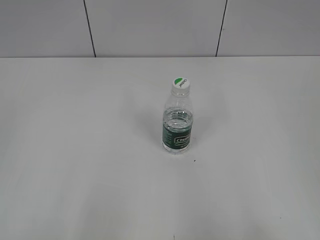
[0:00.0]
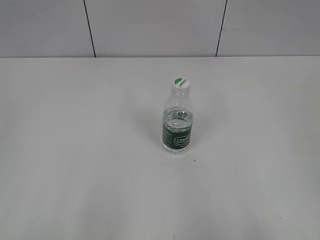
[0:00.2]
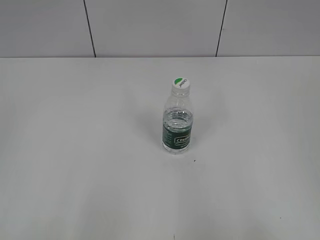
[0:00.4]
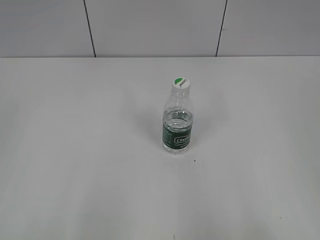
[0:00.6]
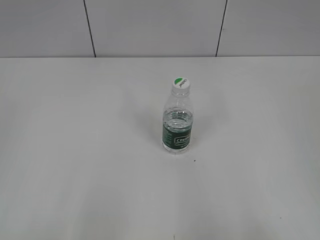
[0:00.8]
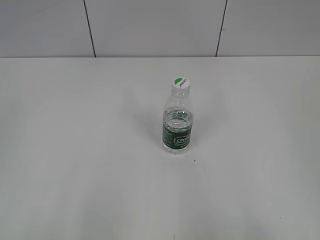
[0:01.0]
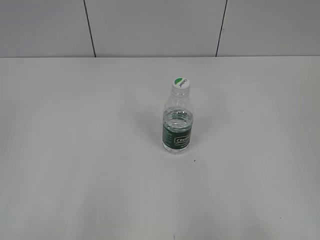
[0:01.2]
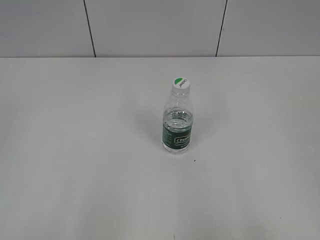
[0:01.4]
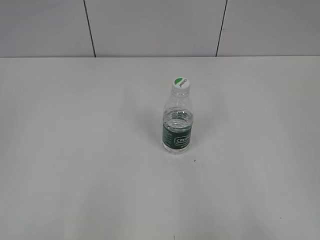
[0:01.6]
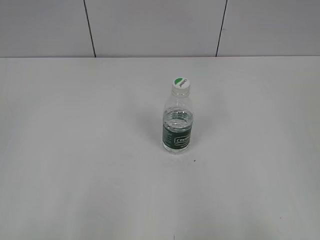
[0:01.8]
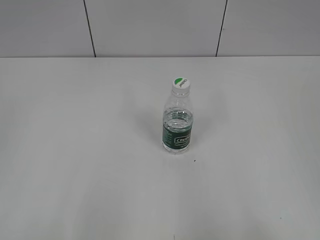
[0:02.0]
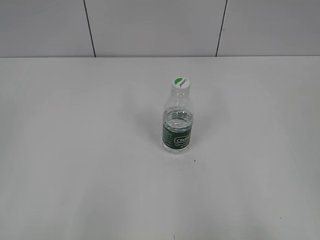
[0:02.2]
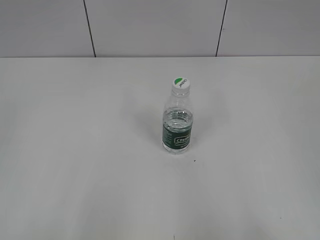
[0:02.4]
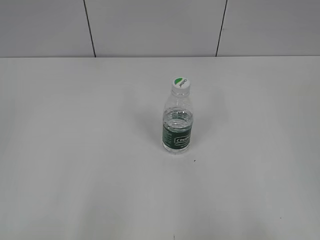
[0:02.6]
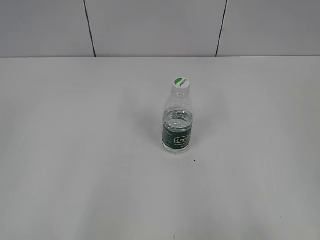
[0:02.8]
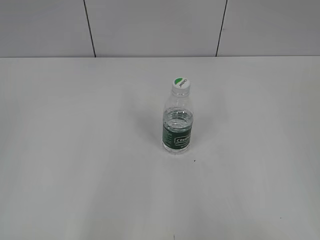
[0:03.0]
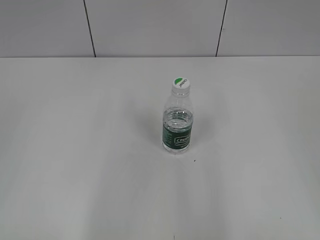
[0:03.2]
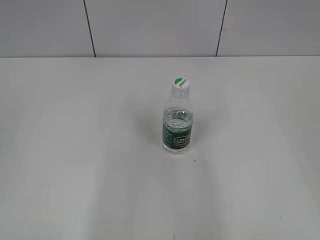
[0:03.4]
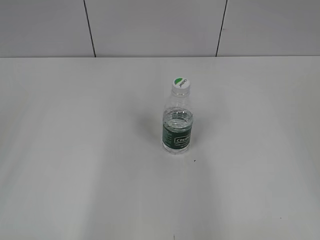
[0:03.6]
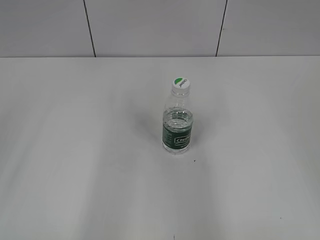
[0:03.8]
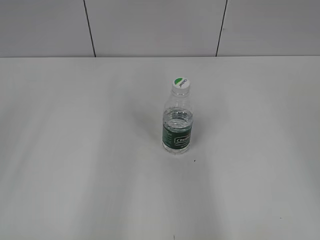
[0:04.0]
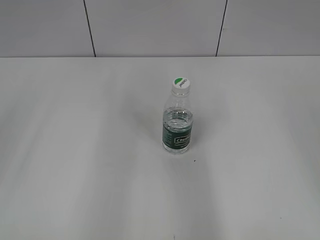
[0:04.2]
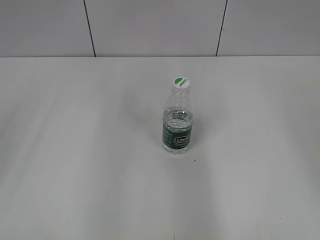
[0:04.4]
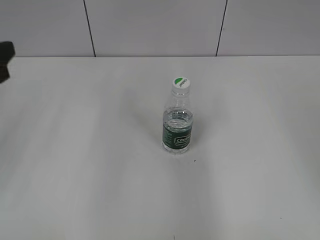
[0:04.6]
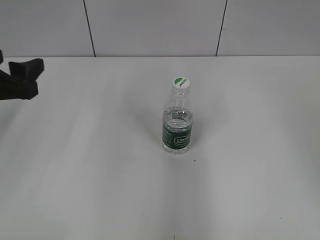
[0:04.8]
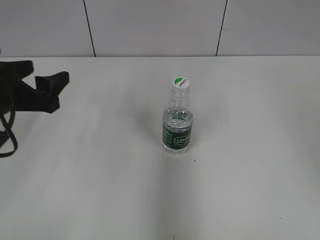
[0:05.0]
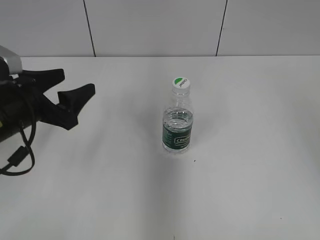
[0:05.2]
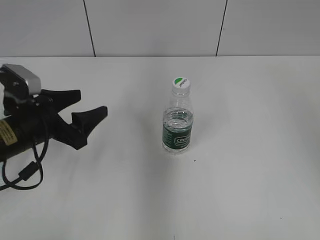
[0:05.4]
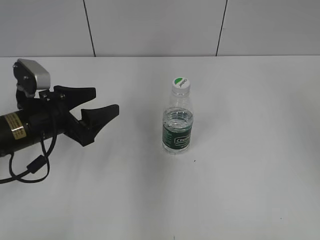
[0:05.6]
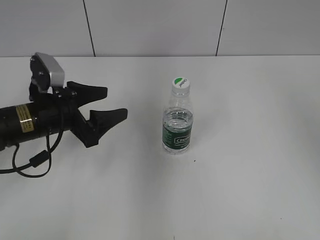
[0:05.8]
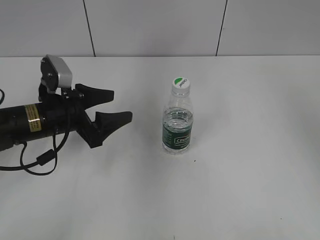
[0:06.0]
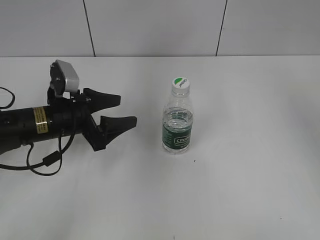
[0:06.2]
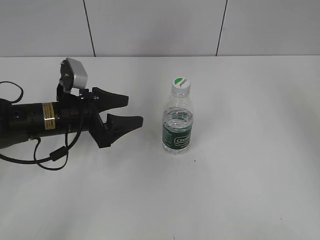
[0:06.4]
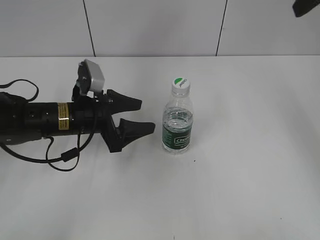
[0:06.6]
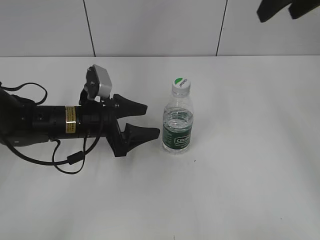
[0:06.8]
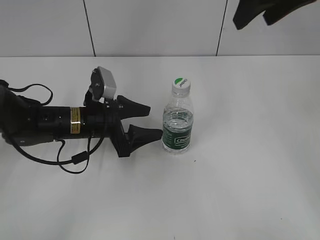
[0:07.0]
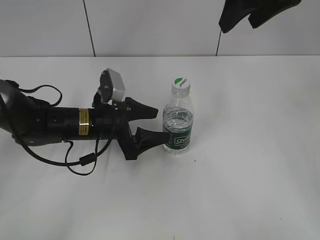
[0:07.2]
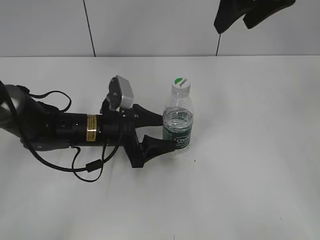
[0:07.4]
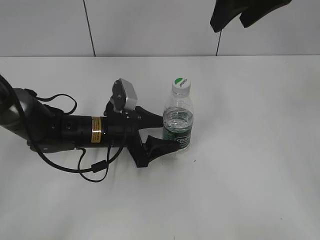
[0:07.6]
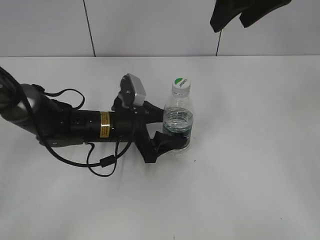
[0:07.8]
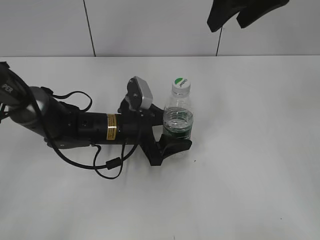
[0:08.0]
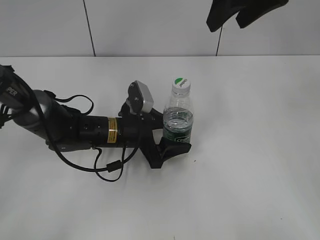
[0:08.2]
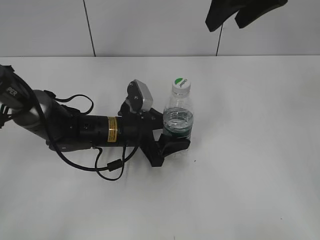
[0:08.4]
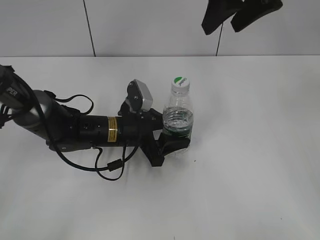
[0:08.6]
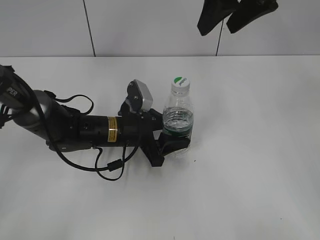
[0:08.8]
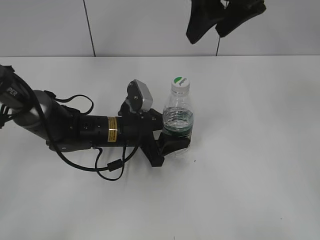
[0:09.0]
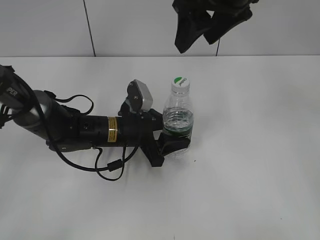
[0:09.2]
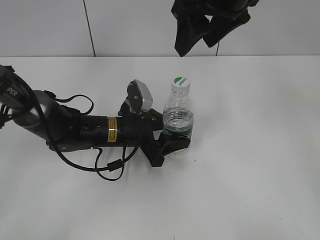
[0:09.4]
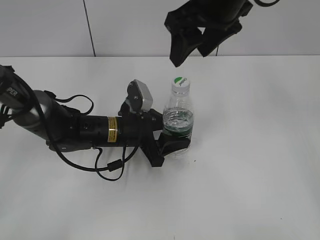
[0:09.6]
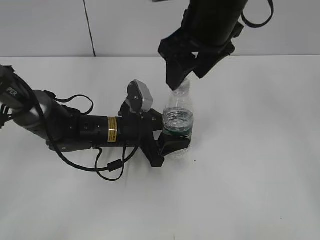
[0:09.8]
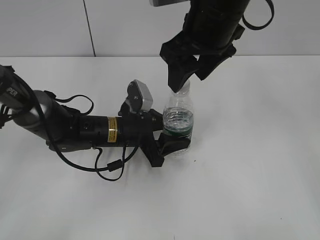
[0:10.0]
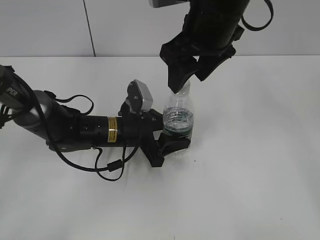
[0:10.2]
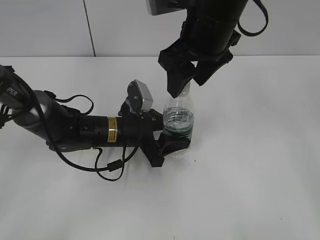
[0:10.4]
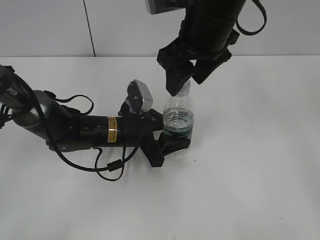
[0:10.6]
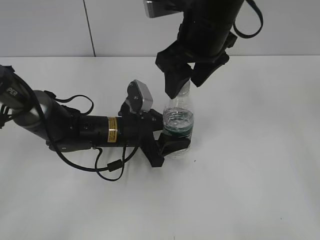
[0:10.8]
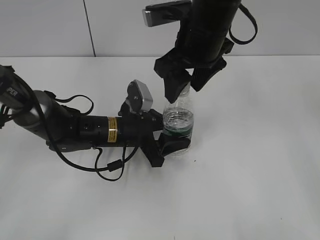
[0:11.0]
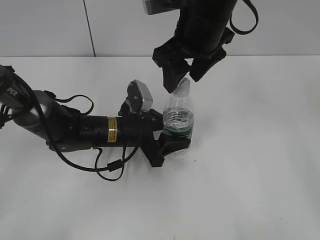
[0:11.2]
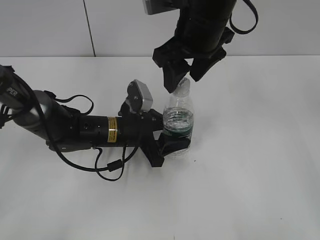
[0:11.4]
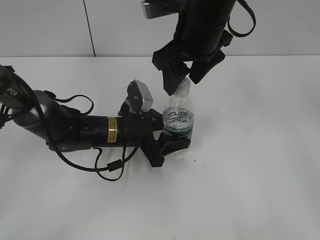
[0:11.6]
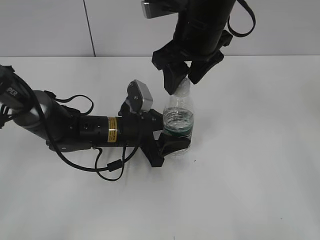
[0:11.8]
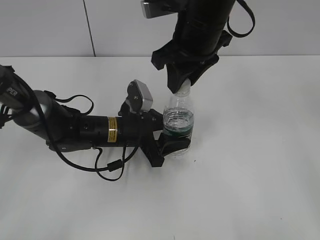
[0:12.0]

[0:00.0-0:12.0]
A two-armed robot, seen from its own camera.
Step, 0:00.0 to 0:08.6: Grasp the bottle and move it to the center of the table with the left gripper.
0:04.4 to 0:06.0: The right gripper travels forward by about 15 cm. Meanwhile the left gripper goes approximately 20 cm downward, to the right and forward.
0:06.0 to 0:07.6: The right gripper heads to the left and forward, covering approximately 15 cm. The left gripper heads to the right and downward, covering roughly 10 cm.
0:07.6 to 0:09.0: The grippers make only small movements.
0:09.0 to 0:10.4: The right gripper is displaced downward by roughly 5 cm.
0:10.4 to 0:12.0: The right gripper closes up.

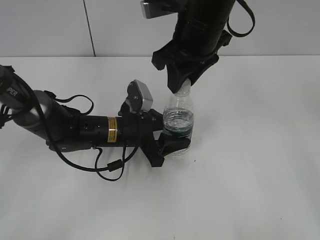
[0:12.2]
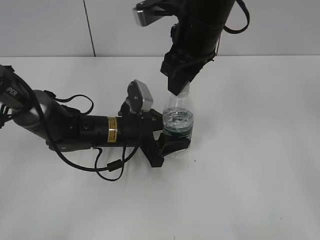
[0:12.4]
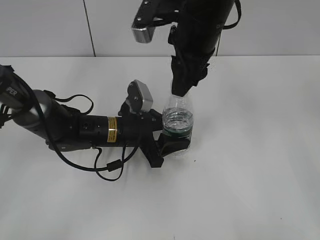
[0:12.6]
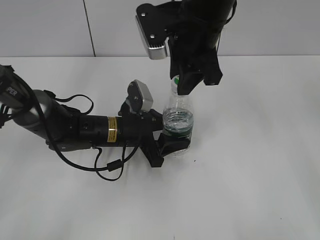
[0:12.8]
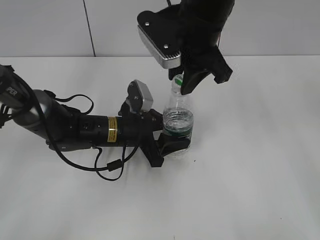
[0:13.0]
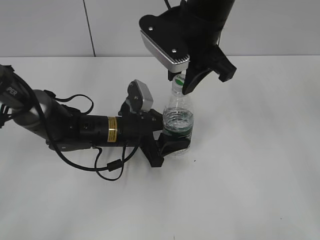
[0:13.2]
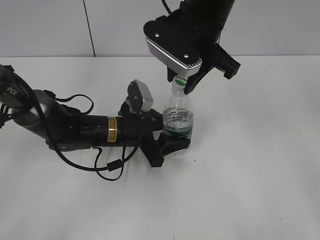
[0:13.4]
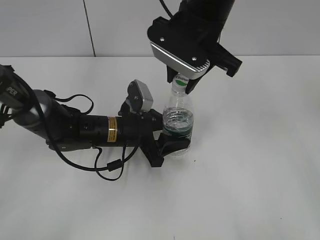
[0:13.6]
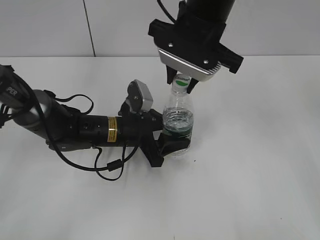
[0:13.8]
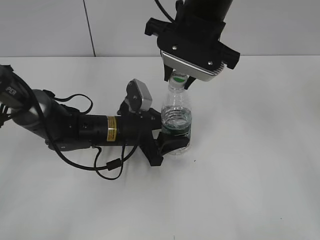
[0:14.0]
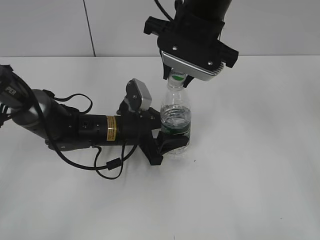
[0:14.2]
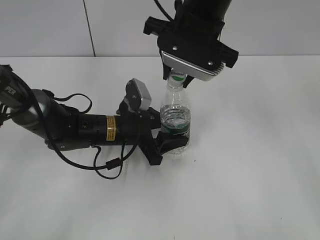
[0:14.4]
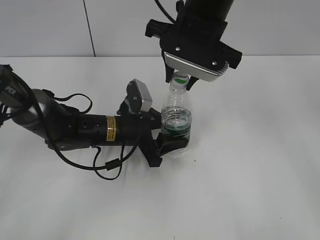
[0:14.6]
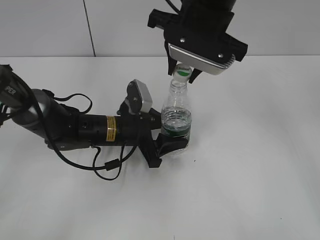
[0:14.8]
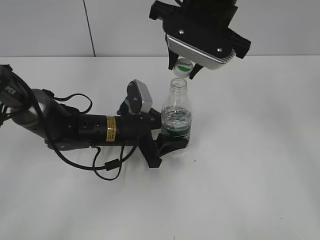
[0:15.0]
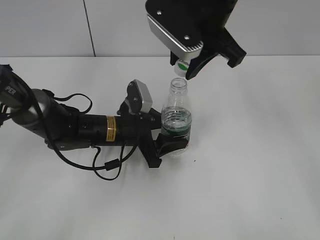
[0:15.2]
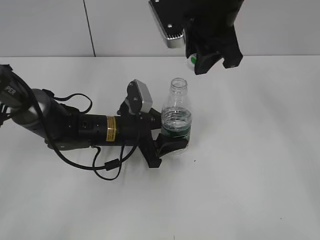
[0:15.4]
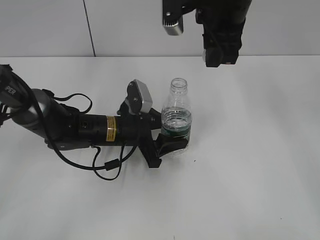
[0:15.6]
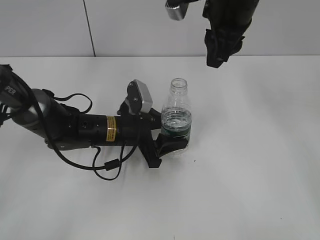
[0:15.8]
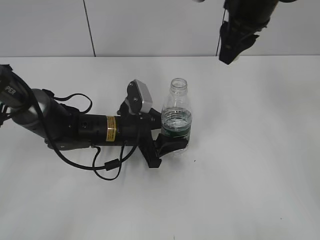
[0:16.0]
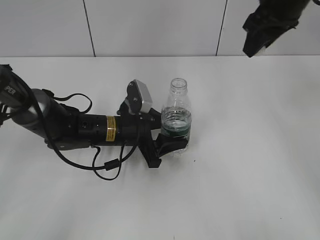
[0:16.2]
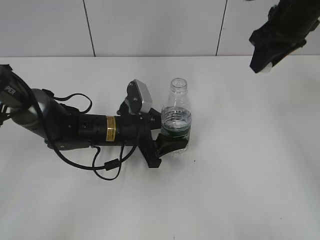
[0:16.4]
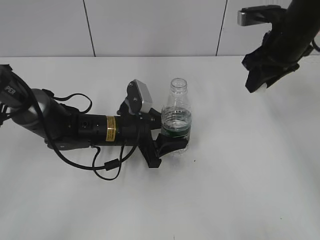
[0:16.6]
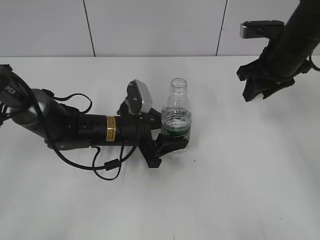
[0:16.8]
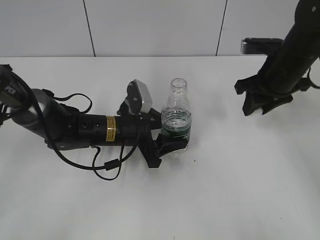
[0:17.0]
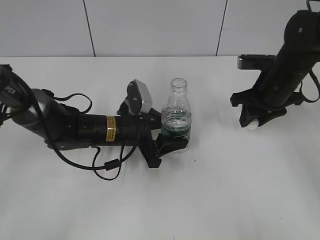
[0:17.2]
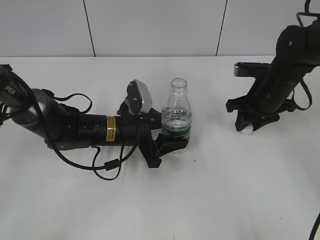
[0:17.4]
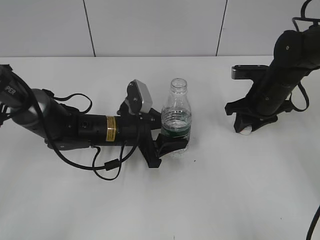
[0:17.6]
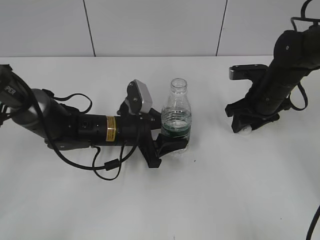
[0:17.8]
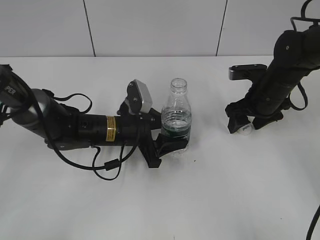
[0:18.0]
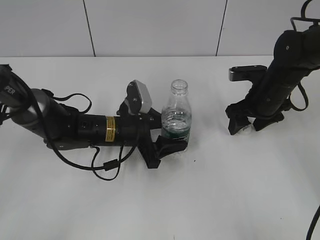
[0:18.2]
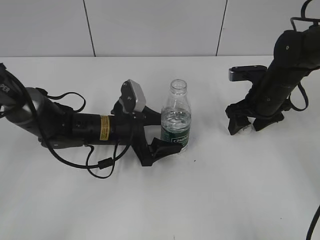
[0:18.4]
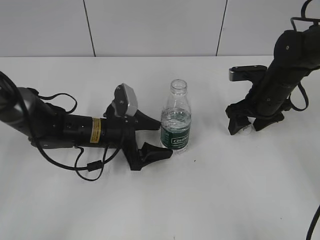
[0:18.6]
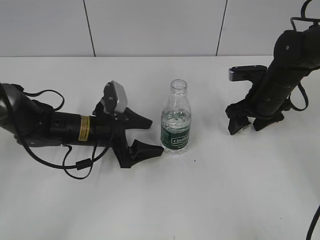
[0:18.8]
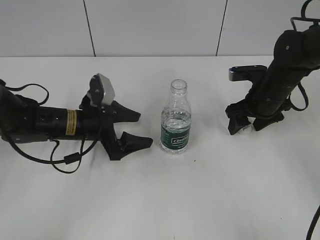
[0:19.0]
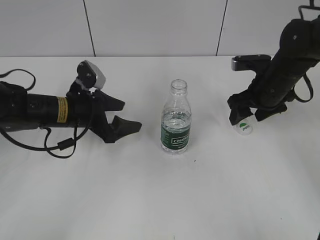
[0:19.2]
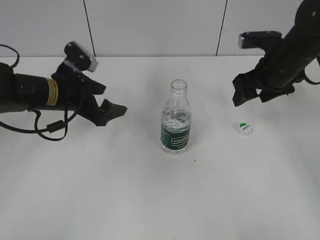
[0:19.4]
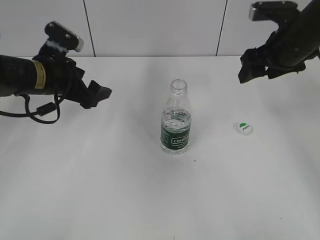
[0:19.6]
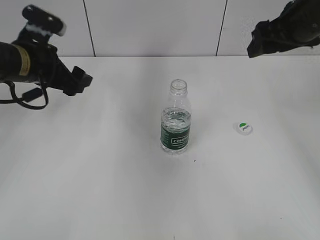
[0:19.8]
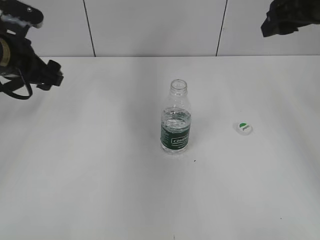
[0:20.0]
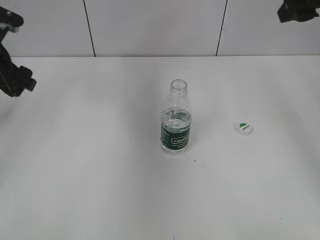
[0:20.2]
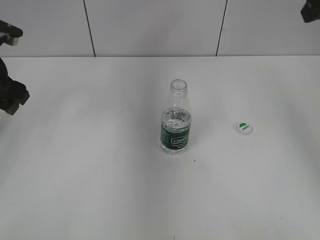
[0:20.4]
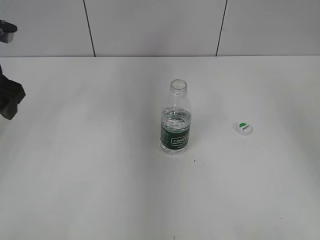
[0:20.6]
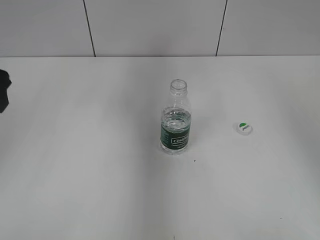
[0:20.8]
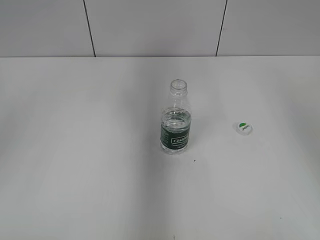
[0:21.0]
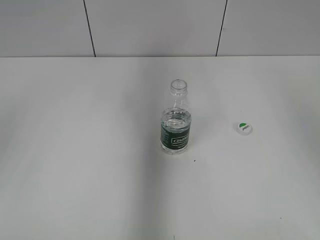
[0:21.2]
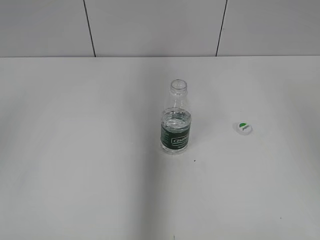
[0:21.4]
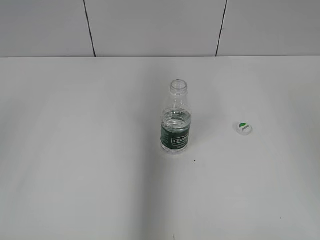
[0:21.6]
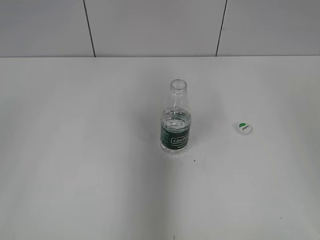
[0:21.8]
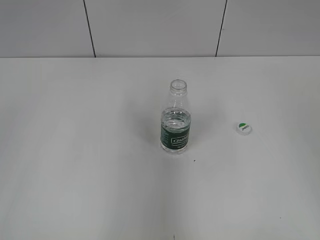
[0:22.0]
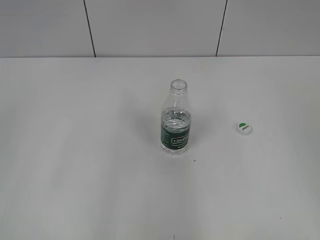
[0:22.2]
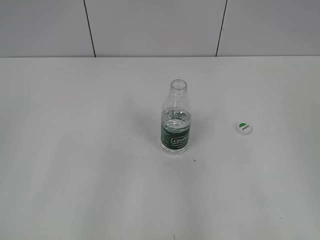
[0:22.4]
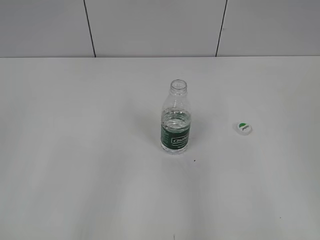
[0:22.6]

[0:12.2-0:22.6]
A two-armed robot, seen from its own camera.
Step, 0:12.2 to 0:15.0: Unscrew the bottle cap with the right gripper while holding the bottle with the left gripper.
Step, 0:15.2 to 0:18.2: Place the bottle cap on the table with the right gripper.
Step, 0:18.4 to 0:18.8: Place the bottle on the table with the left gripper.
0:13.6 to 0:15.2: The grippers make only small movements.
0:15.2 to 0:16.6: The right gripper goes about 15 cm to the right and downward.
0:16.6 to 0:18.2: The right gripper is displaced downward by approximately 15 cm, and opens.
0:18.2 to 0:19.6: The right gripper moves upward, about 10 cm; the left gripper is displaced to the left and upward by approximately 15 cm, and opens.
0:19.6 to 0:21.2: The right gripper goes roughly 20 cm upward, backward and to the right; the left gripper travels upward, backward and to the left by about 25 cm.
0:21.2 to 0:22.6: Both grippers travel together backward and downward, roughly 20 cm.
